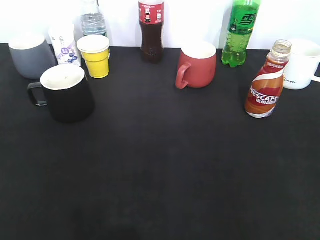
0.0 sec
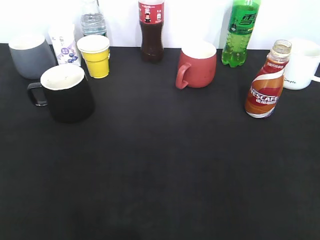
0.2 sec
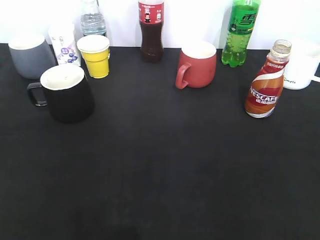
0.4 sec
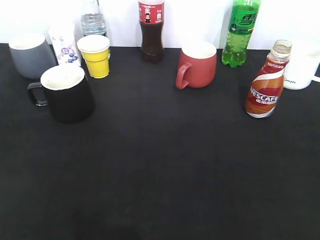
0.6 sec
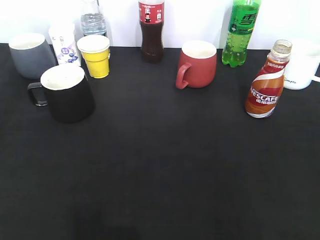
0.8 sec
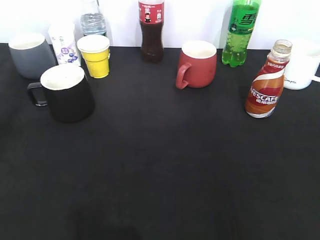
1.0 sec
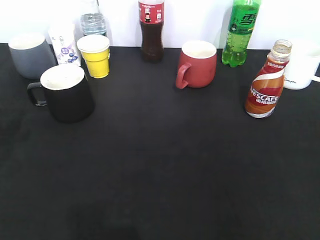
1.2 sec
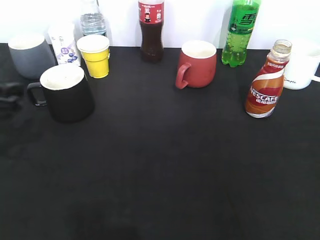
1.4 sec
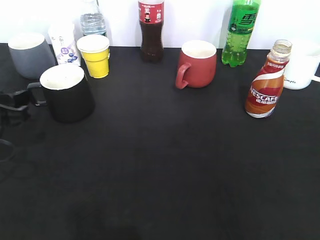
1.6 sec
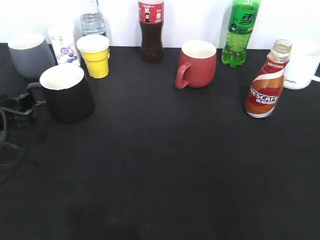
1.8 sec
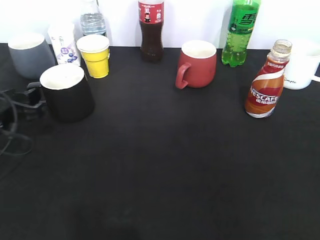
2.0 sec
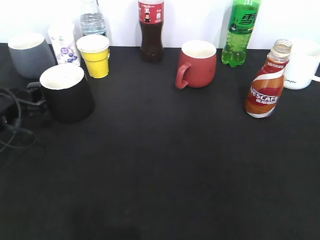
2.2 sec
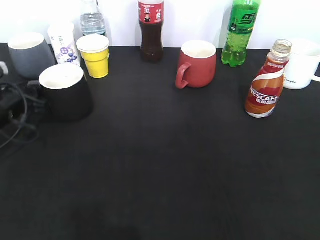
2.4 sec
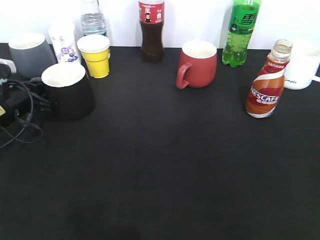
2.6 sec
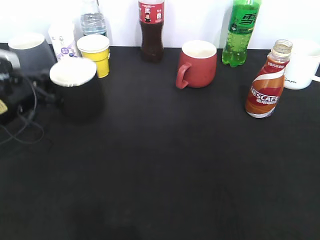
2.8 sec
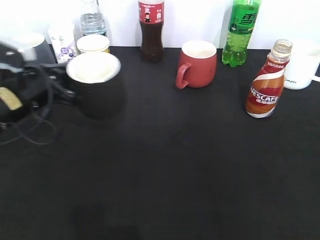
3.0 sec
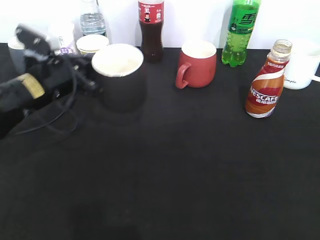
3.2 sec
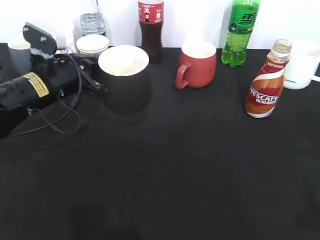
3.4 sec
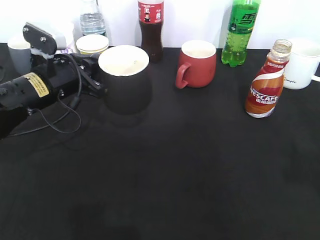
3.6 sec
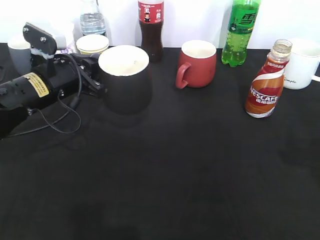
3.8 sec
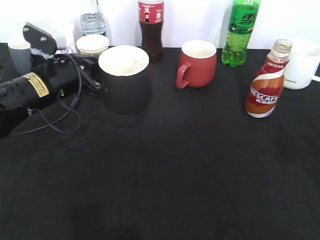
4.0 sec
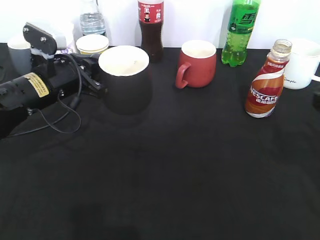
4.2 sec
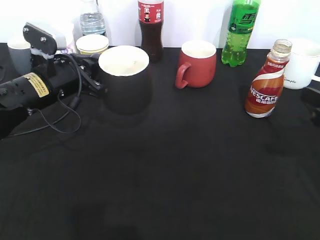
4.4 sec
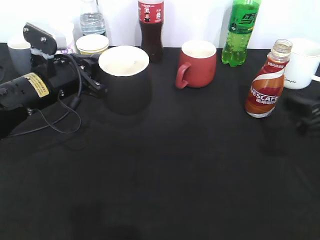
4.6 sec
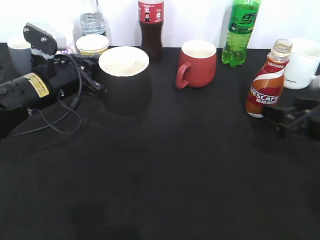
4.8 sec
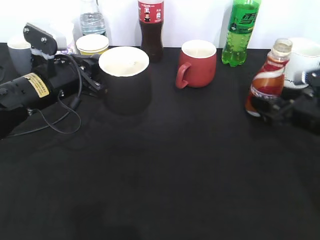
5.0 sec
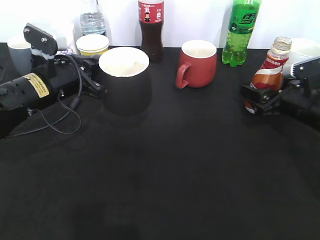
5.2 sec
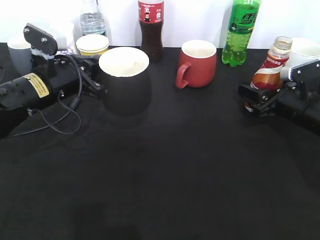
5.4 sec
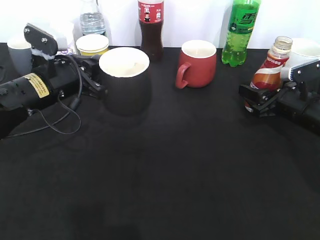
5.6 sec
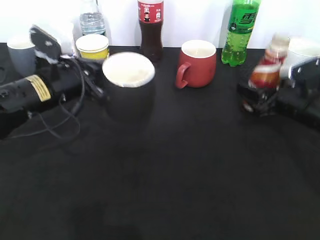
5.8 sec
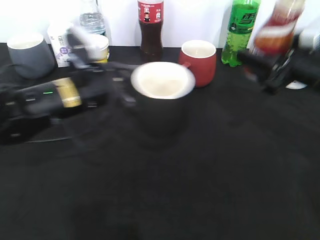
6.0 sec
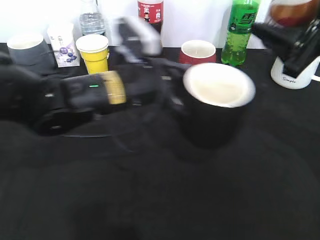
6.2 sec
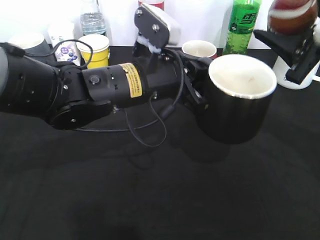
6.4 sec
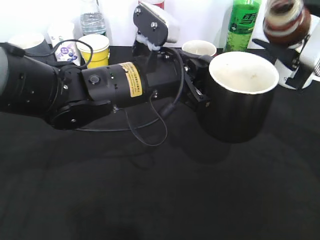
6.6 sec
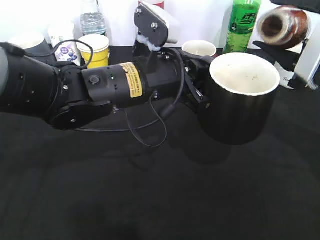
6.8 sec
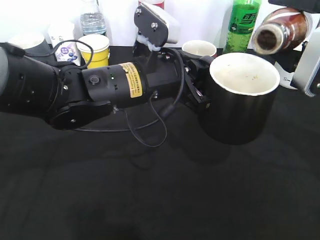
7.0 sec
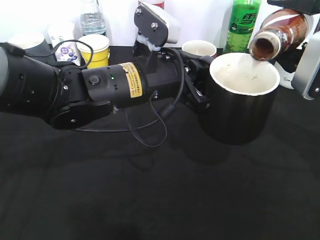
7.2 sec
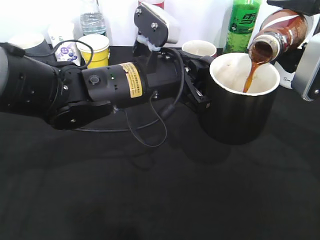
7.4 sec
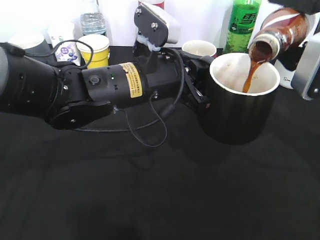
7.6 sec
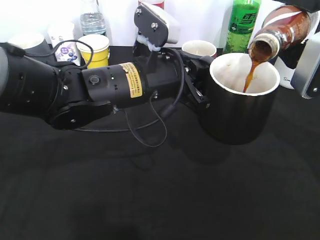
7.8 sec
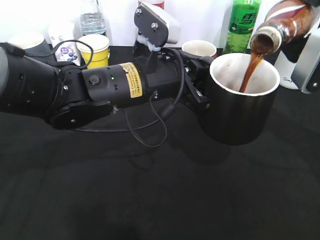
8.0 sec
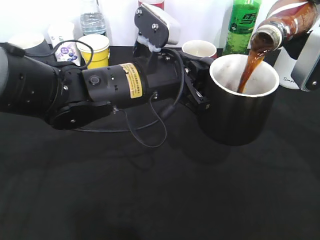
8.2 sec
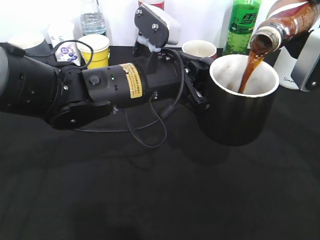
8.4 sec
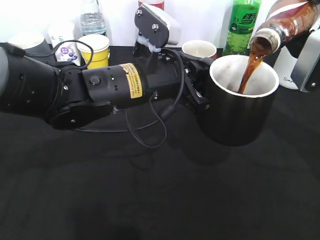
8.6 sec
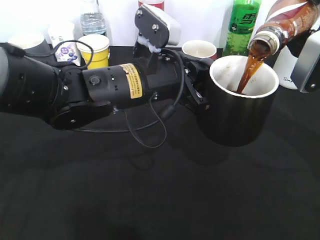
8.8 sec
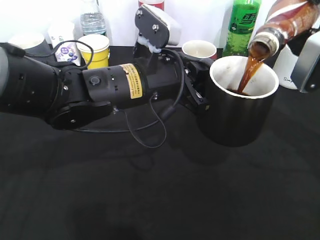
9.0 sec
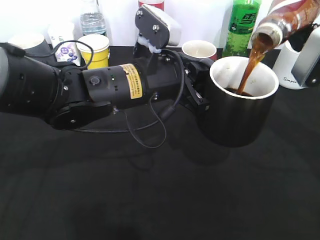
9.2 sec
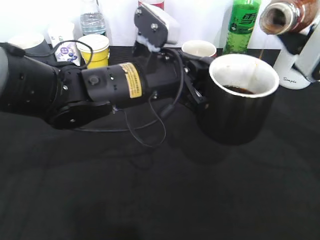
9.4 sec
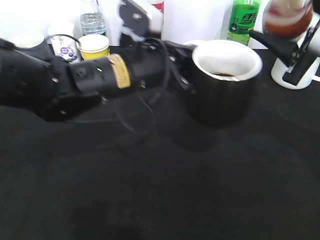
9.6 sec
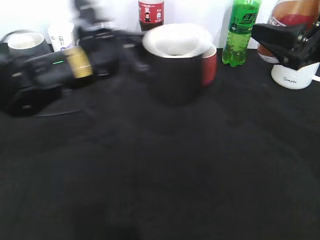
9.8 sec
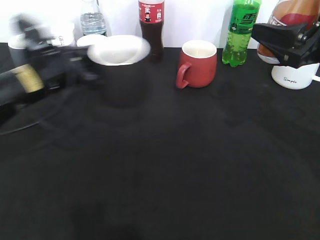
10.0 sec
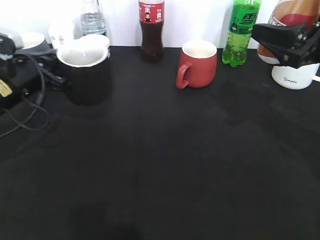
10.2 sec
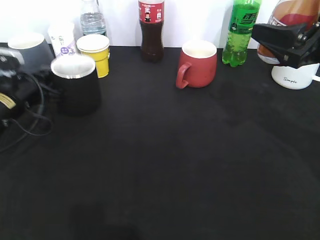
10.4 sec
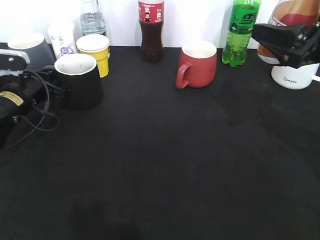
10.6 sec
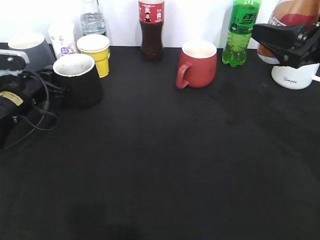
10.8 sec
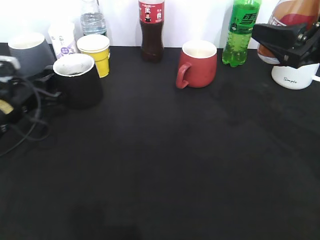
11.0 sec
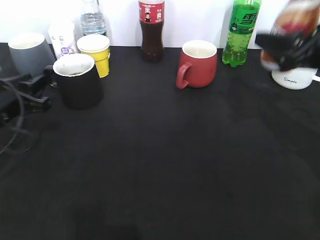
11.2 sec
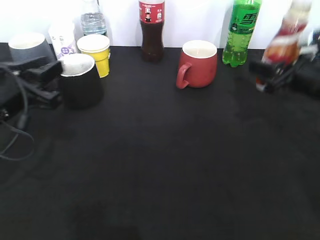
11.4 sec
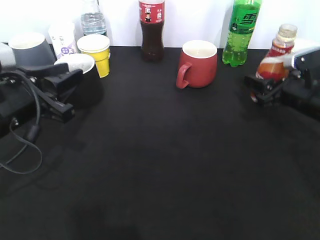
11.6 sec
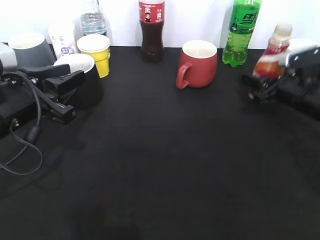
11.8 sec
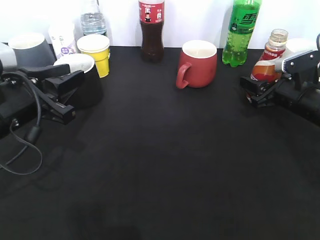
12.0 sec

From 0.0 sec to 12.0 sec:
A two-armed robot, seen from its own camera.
Step, from 0.6 sec to 2.6 sec: Grasp the black cup with left gripper.
Step, from 2.8 sec to 3.2 sec: Lift the black cup with left gripper.
Step, from 3.4 sec to 5.6 sec: Grasp the bottle with coffee with right gripper.
Step, from 5.8 sec to 9.6 sec: Pour the coffee from bottle to cup with right gripper.
Step, from 10.0 sec to 11.0 sec: Place the black cup on the table with left gripper.
From 0.0 sec to 1.6 sec: The left gripper goes about 25 cm forward and downward.
From 1.6 sec to 3.0 sec: The left gripper goes about 10 cm forward and to the right, and closes.
From 3.0 sec to 4.4 sec: The right gripper moves forward and downward, about 25 cm.
From 4.4 sec to 6.0 sec: The right gripper goes approximately 10 cm forward, and closes its fingers, while the left gripper travels to the right by about 5 cm.
From 6.0 sec to 7.6 sec: The right gripper travels upward by about 5 cm, while the left gripper shifts approximately 10 cm to the right.
From 7.6 sec to 9.0 sec: The grippers move only a little.
From 9.0 sec to 10.4 sec: The left gripper is displaced to the left by approximately 25 cm.
From 10.4 sec to 12.0 sec: The right gripper heads downward and forward, covering approximately 15 cm. Meanwhile the left gripper shifts roughly 15 cm backward, upward and to the right, and opens its fingers.

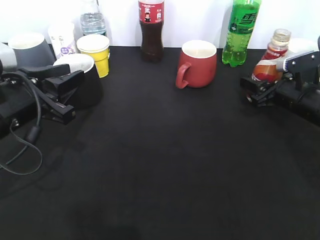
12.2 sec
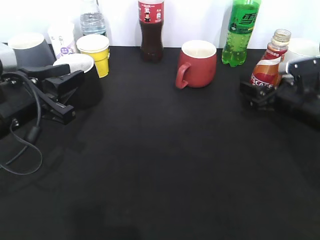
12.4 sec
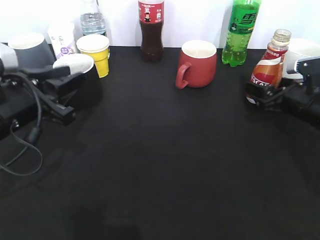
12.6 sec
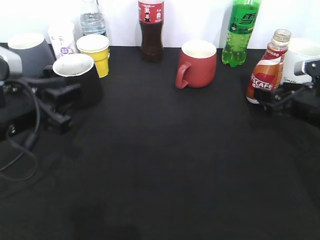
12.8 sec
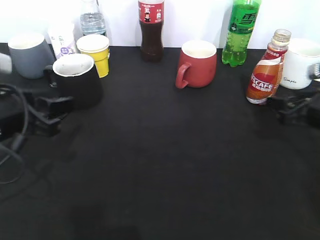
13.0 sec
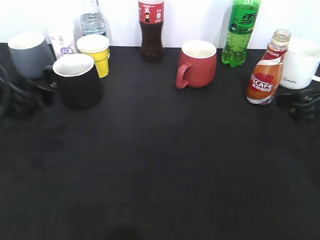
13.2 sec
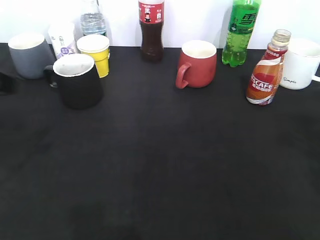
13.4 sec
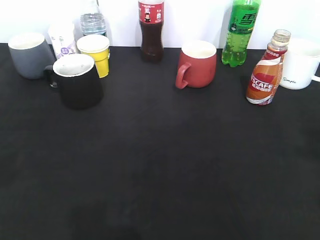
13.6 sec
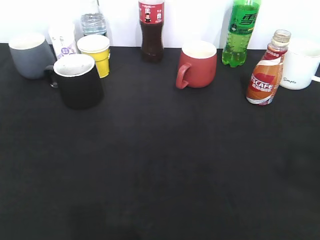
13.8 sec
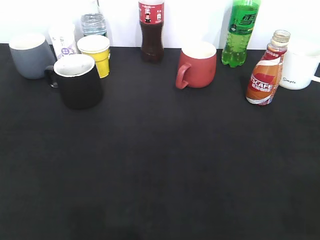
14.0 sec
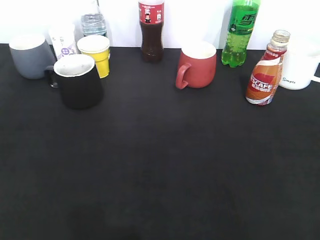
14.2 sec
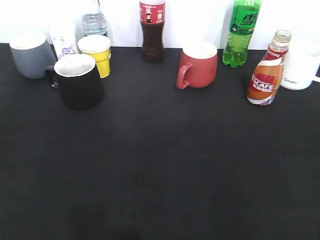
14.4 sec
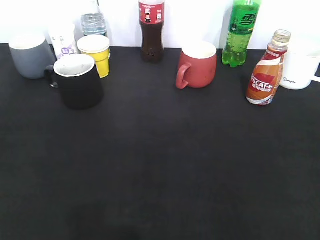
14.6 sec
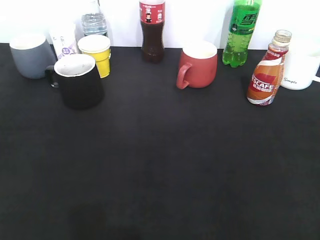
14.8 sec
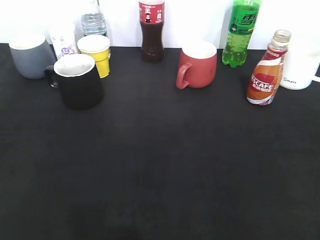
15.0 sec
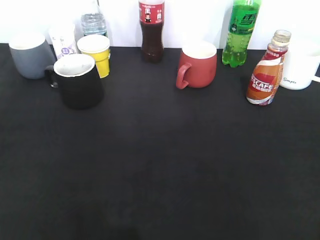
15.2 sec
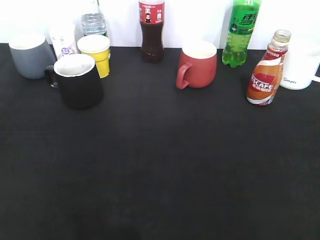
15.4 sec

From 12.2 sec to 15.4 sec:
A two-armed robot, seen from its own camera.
From 12.2 sec to 13.8 sec: The right gripper shifts approximately 30 cm backward and upward, while the left gripper is displaced backward, upward and to the left by about 25 cm, and opens its fingers.
